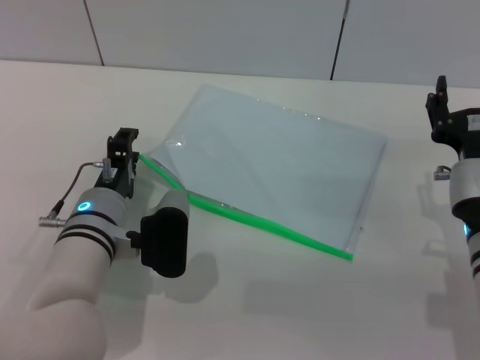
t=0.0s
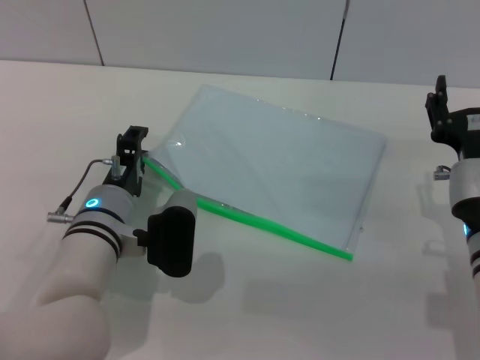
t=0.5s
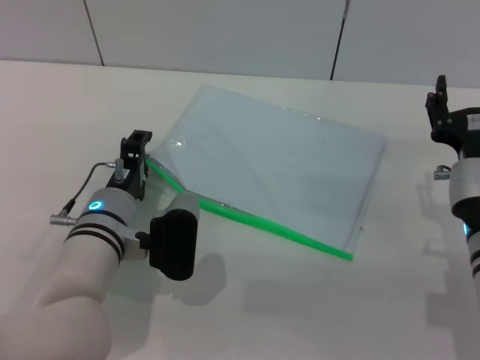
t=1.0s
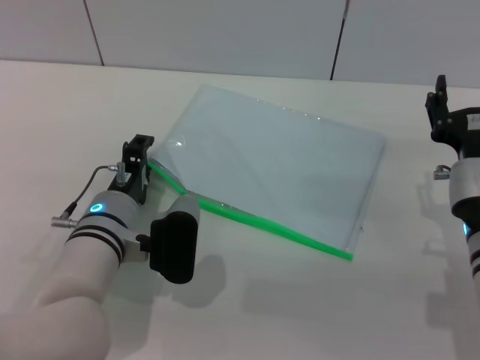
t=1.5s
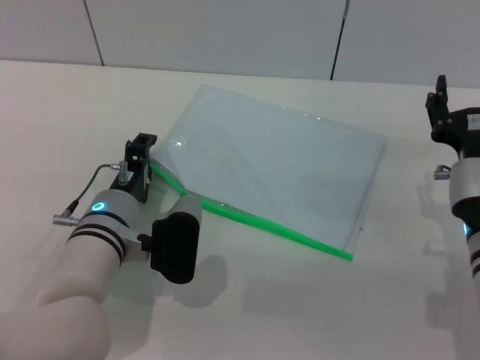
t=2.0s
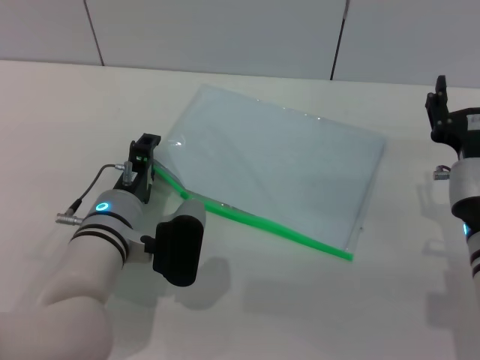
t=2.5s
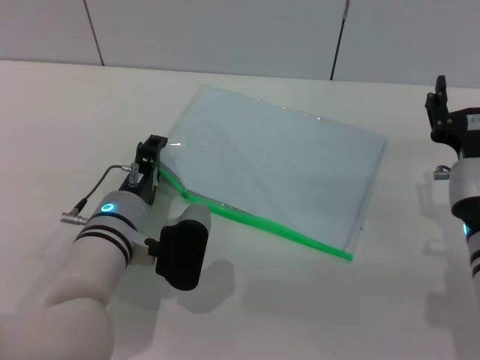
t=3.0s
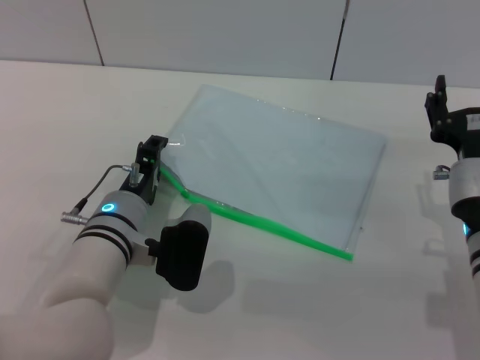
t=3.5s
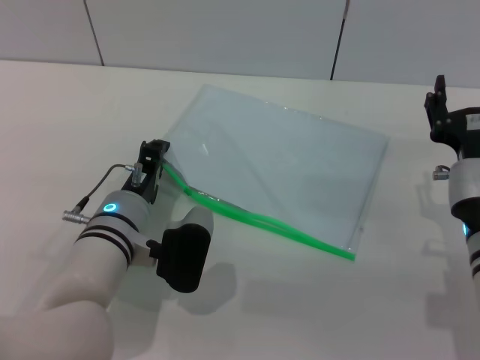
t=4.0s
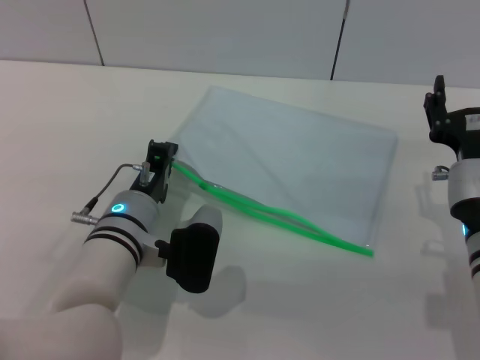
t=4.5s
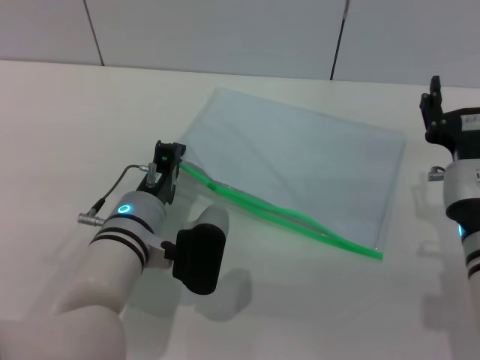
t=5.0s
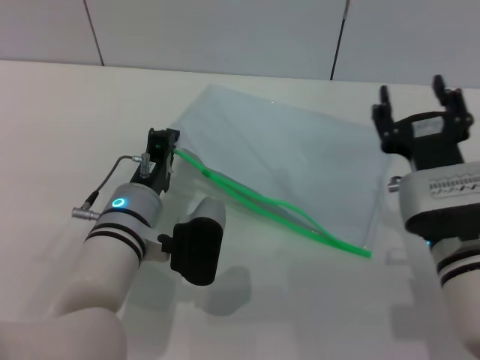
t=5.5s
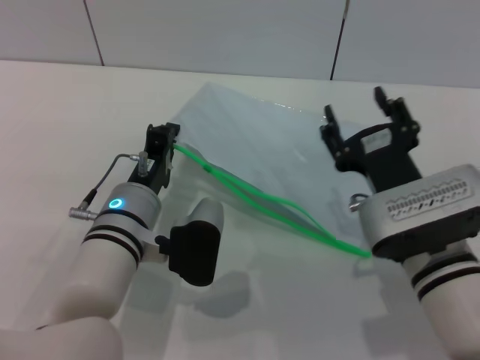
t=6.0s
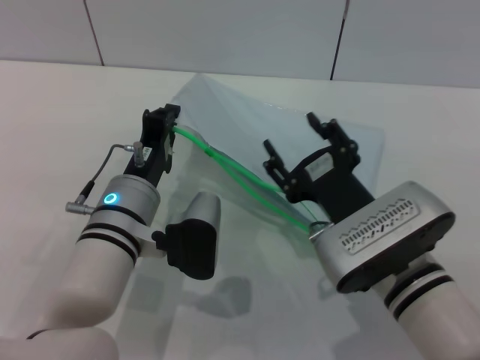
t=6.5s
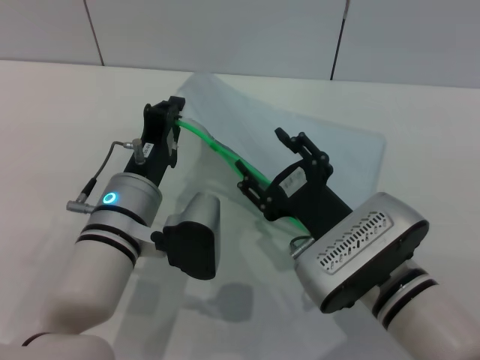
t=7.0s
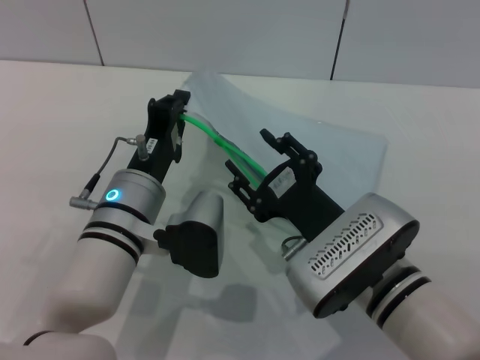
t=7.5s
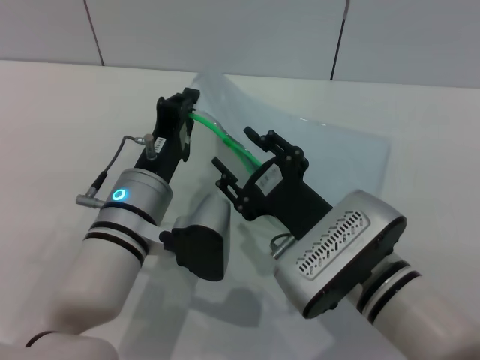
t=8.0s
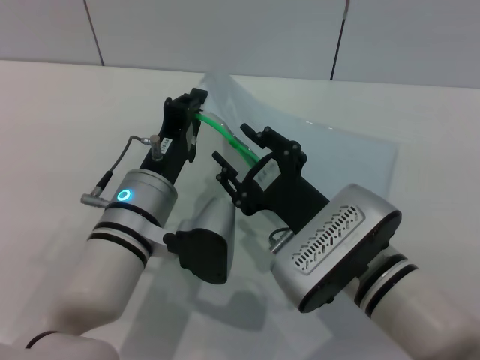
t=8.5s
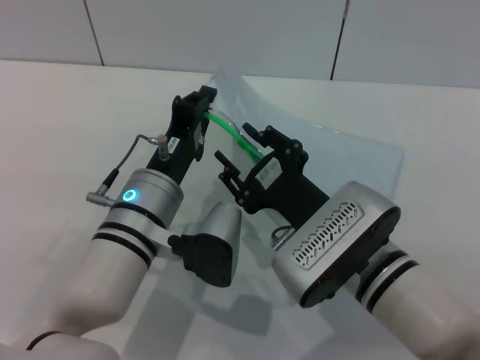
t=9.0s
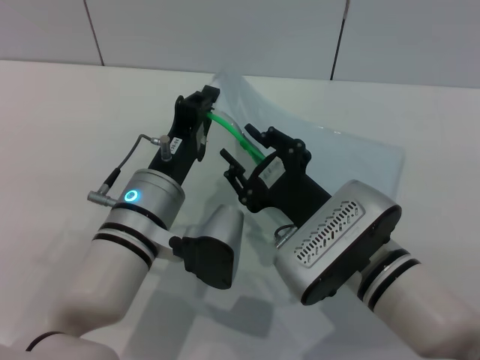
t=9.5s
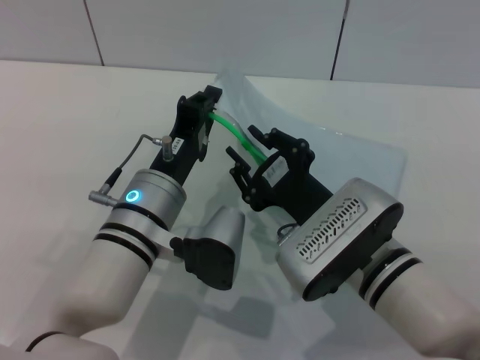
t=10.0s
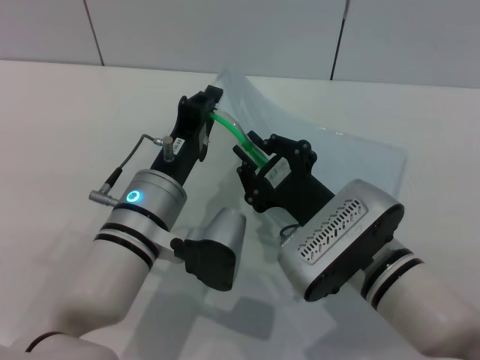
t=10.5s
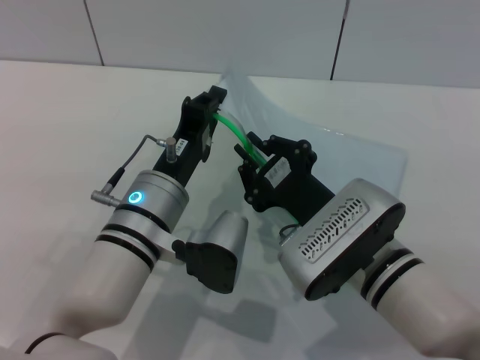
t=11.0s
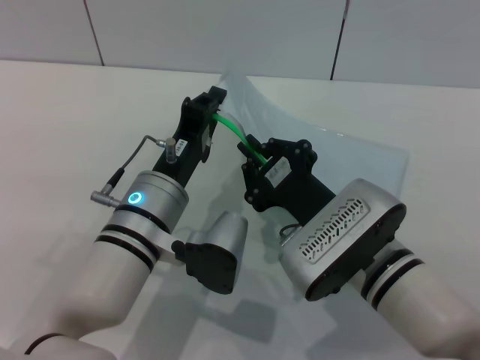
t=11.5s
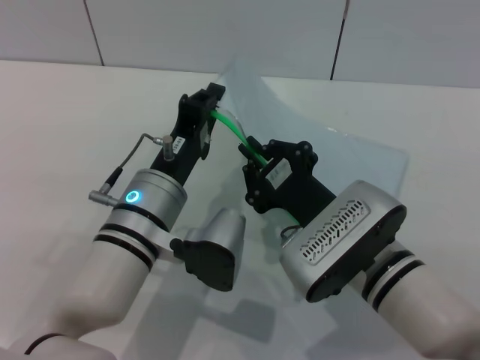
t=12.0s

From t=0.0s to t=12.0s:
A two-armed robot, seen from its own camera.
Step, from t=0.0s to t=5.5s: Pick up the transparent plastic bag with the left gripper.
From t=0.0s to t=2.0s: Both grippers stay about where they are.
From t=2.0s to t=4.0s: The grippers make only small movements.
From t=4.0s to t=6.0s: The right gripper travels to the left by roughly 5 cm, while the left gripper closes up.
From t=6.0s to t=8.0s: The right gripper travels to the left by roughly 5 cm.
From t=8.0s to t=10.0s: The grippers make only small movements.
From t=10.0s to t=12.0s: The right gripper closes.

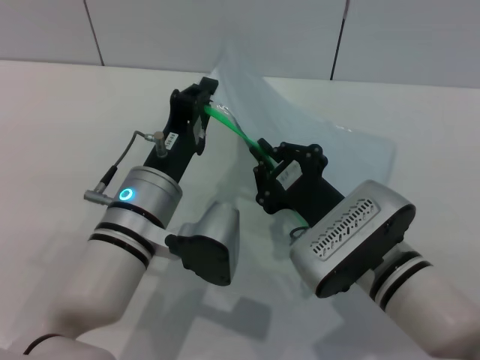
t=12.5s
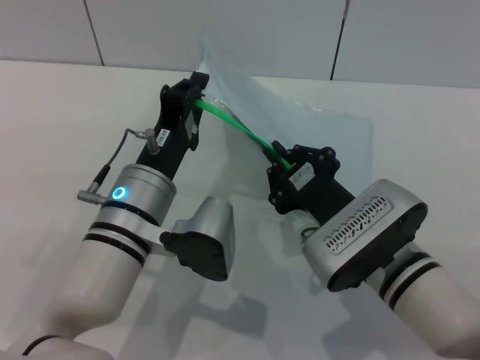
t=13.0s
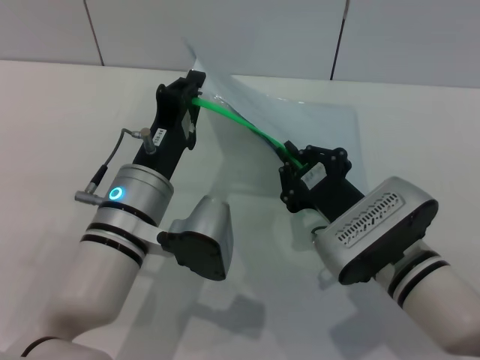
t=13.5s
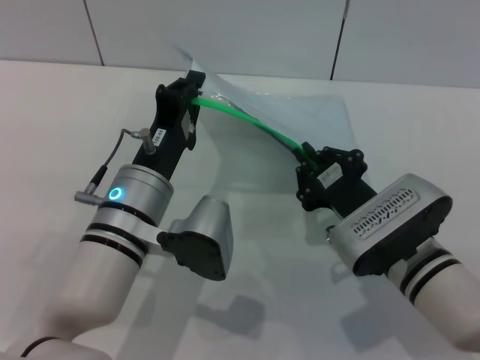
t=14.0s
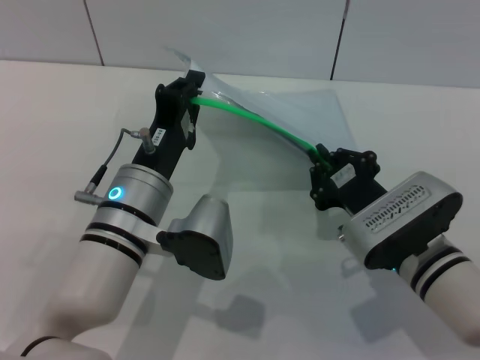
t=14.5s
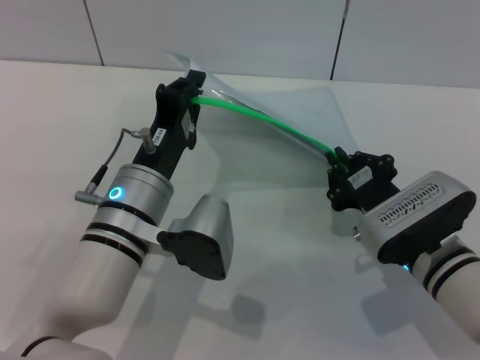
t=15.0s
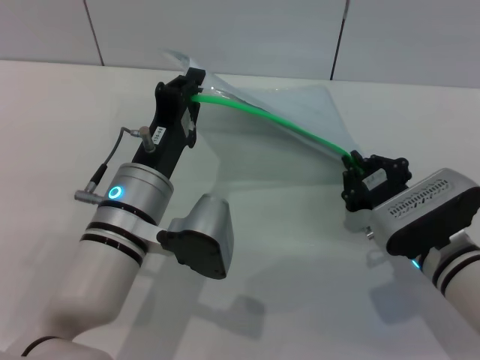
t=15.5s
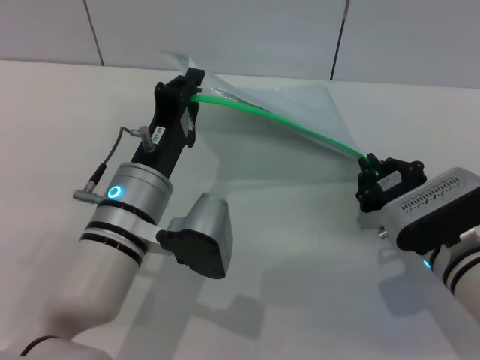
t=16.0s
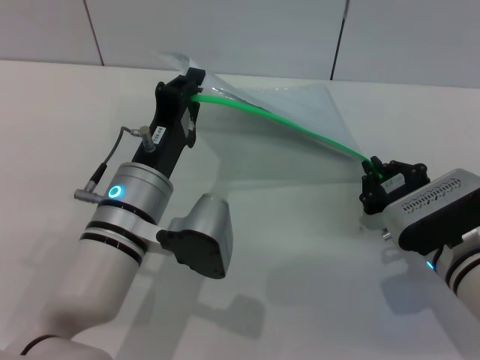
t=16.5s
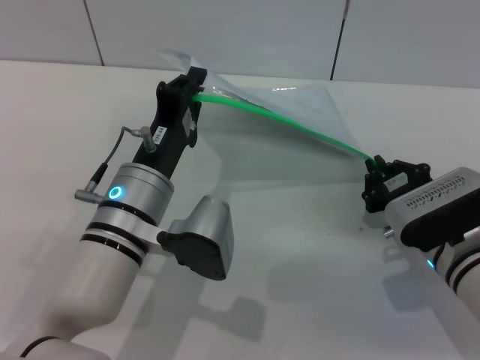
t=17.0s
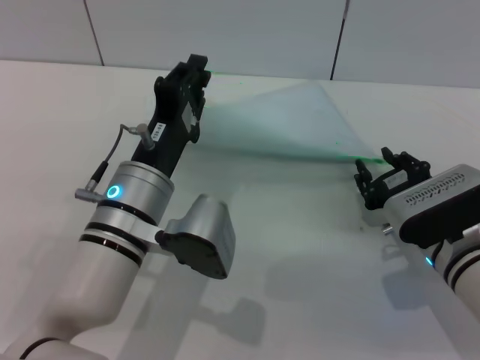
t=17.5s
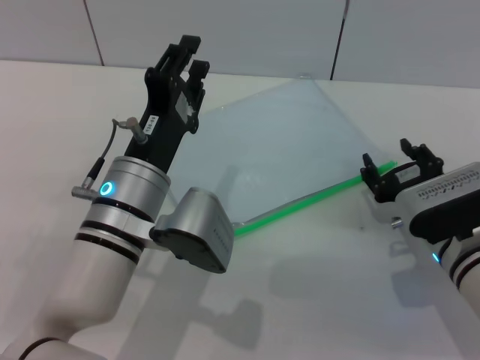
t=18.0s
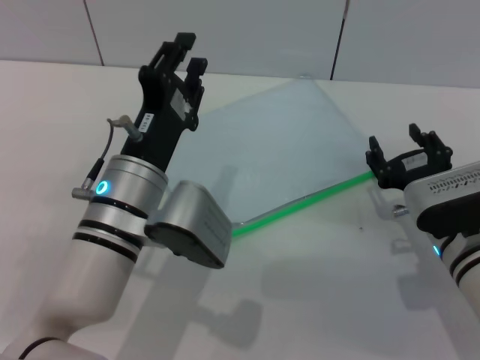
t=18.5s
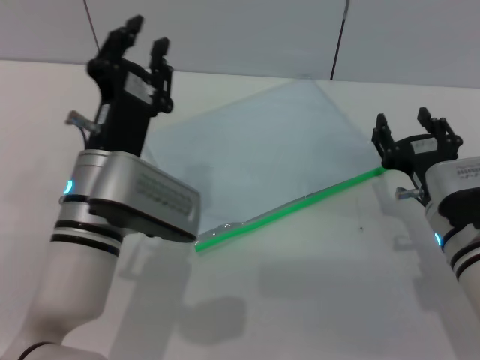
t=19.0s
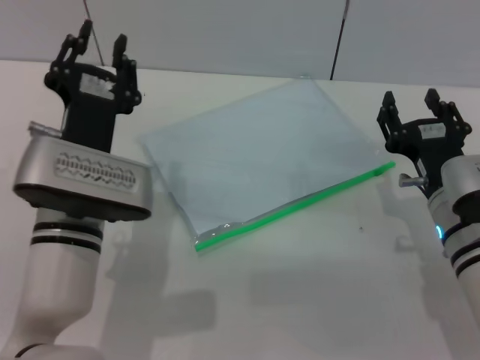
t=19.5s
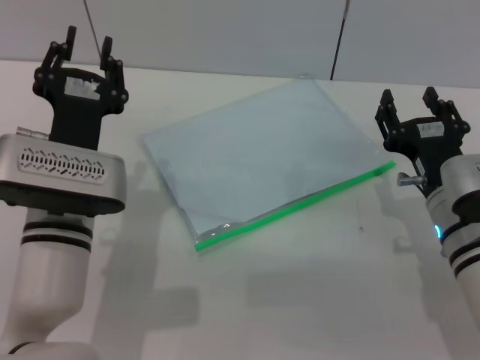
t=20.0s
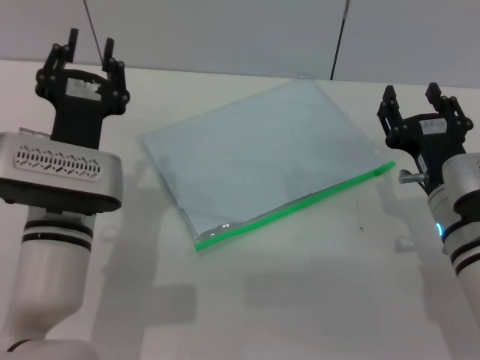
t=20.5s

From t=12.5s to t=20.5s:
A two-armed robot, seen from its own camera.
Step, from t=12.5s to t=17.5s: Pulling up the zipper on the transparent plastic bag with the right gripper to close it.
Step, from t=18.0s to t=18.5s: Place the transparent plastic bag.
From t=12.5s to t=14.5s: The right gripper moves some 5 cm.
From t=14.5s to t=16.5s: The right gripper changes place by about 5 cm.
From t=16.5s to t=18.5s: The right gripper opens; the left gripper opens up.
